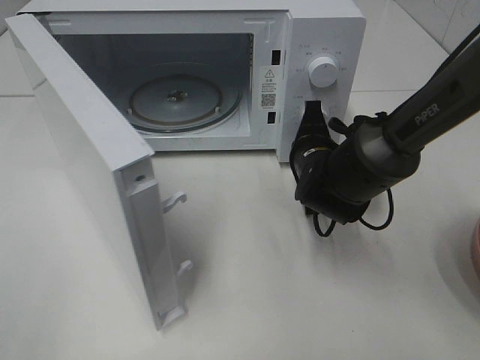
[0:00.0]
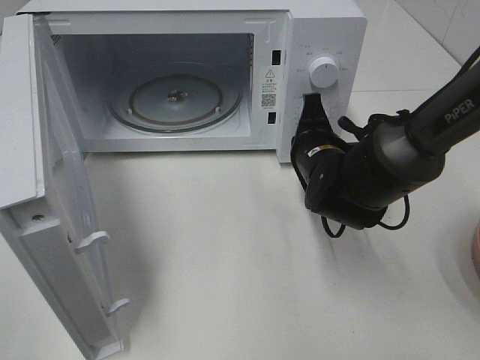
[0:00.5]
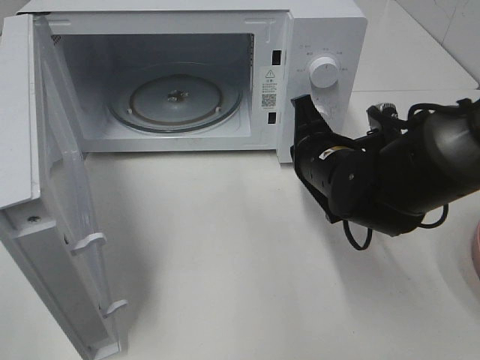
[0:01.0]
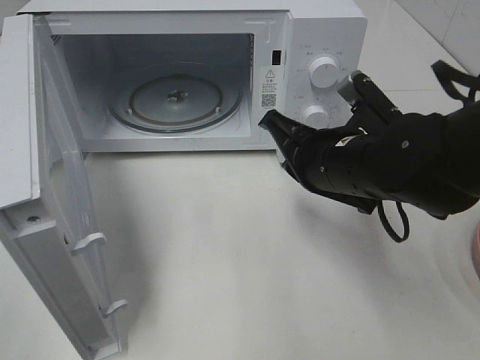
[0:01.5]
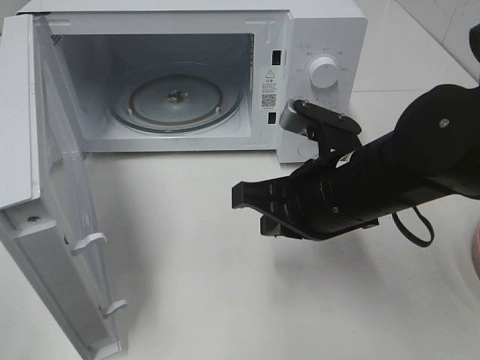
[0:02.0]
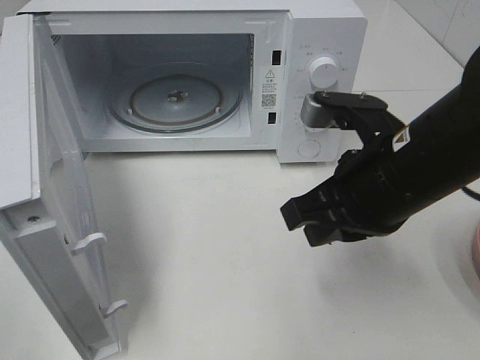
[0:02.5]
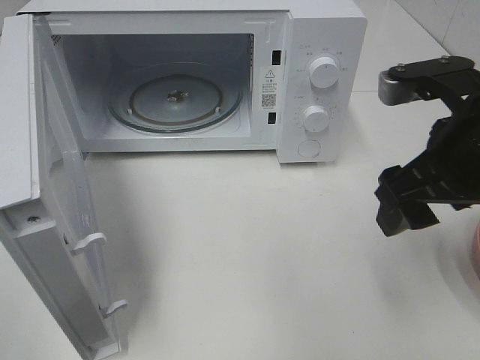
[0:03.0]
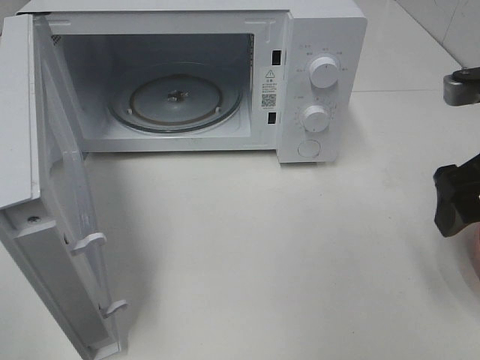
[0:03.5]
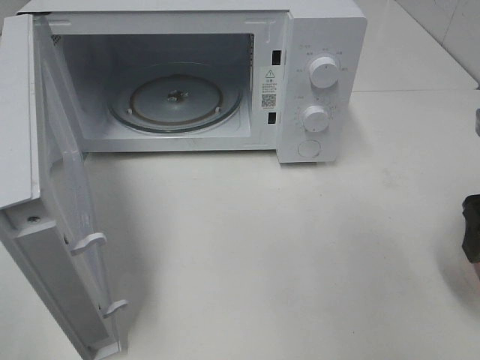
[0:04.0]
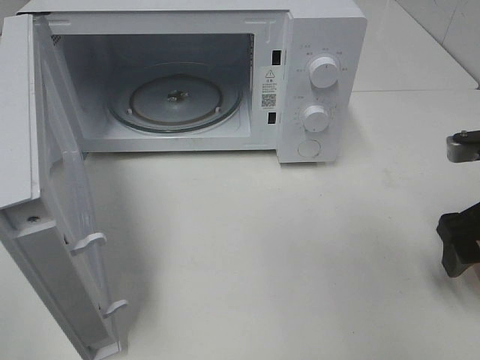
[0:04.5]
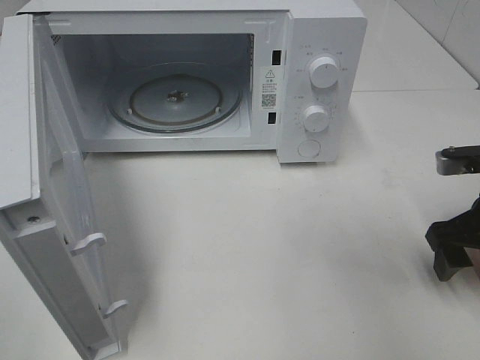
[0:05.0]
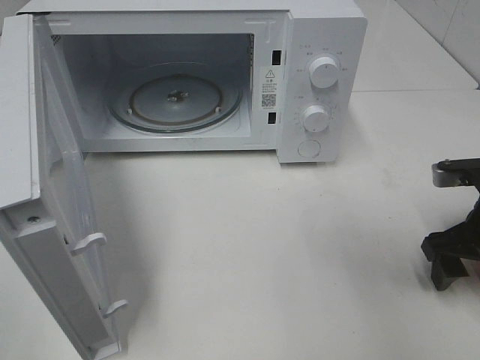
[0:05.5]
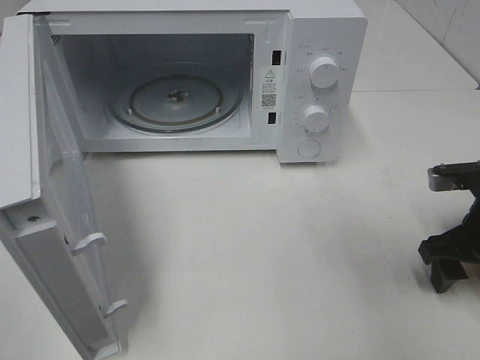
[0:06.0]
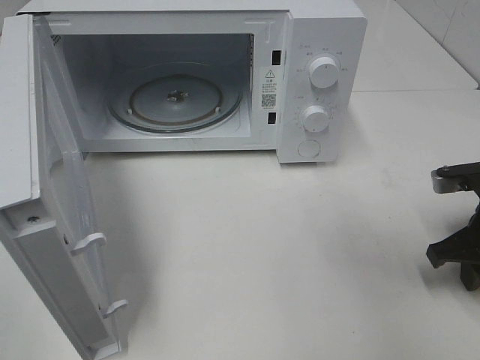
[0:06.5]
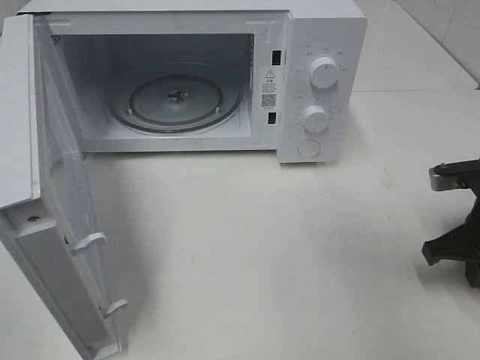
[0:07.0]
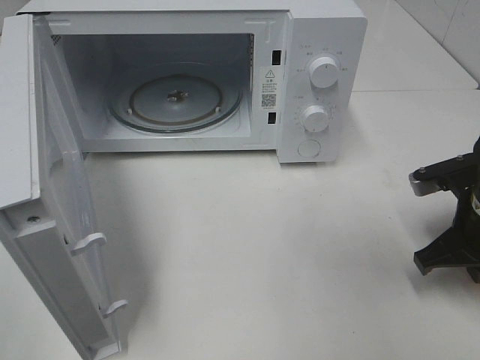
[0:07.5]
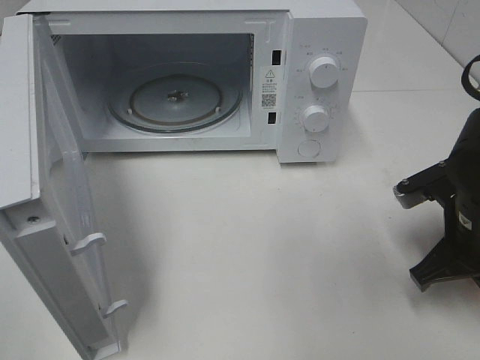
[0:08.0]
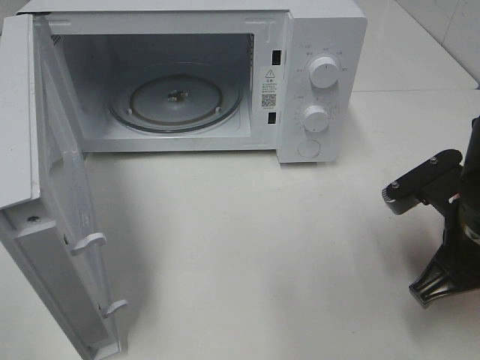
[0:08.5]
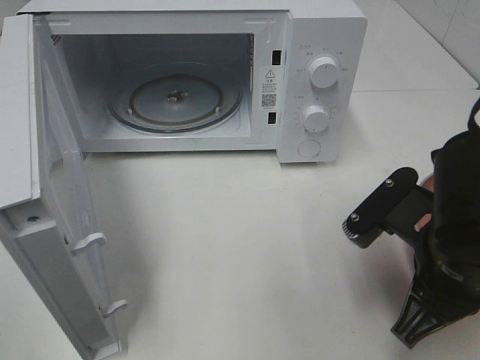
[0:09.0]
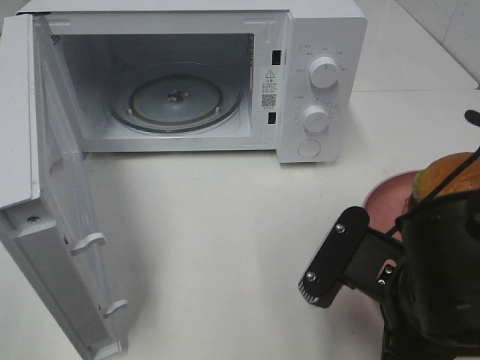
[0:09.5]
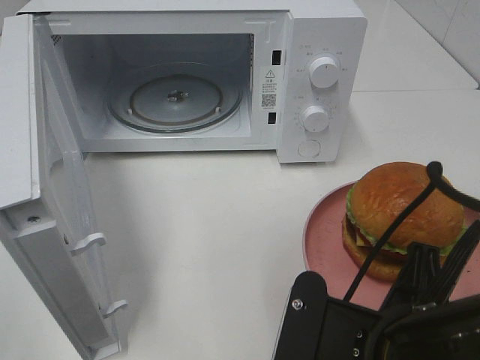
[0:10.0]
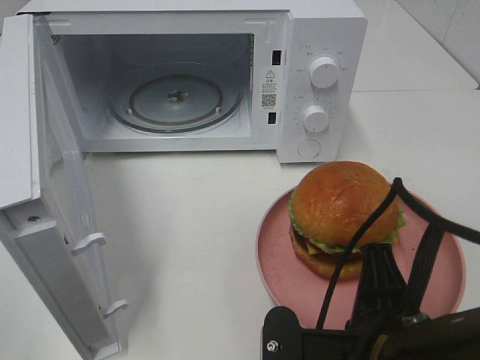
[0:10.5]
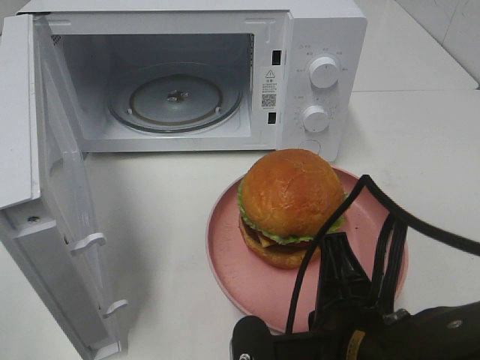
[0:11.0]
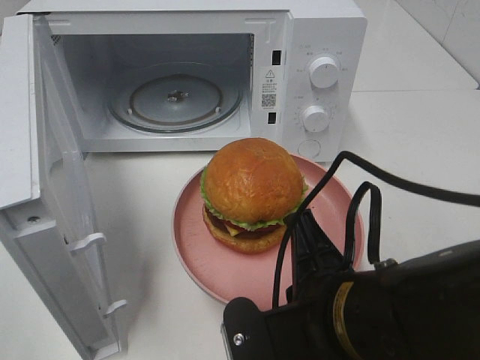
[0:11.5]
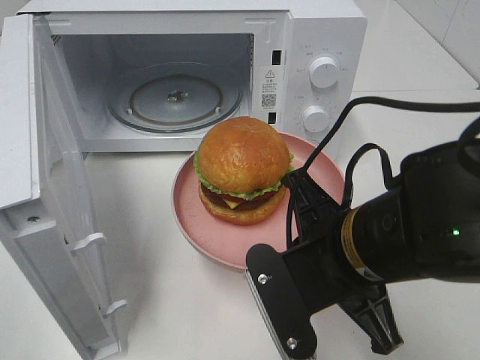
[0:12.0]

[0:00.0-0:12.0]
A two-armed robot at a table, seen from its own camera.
Task of the whole recording: Heat the burger.
Step, 0:01.0 to 0:07.0: Right hand: grab the plate with the hamburger.
0:00.0 to 0:02.0: The right gripper is displaced backward and upward by about 15 cm.
0:02.0 to 0:04.0: The right gripper shifts approximately 20 cm to the right, and opens.
0:04.0 to 0:06.0: The right gripper heads downward, covering some 10 cm.
0:06.0 to 0:08.0: The right gripper shifts about 5 cm to the left, and closes.
0:08.0 to 0:10.0: The right gripper is displaced backward and to the left by roughly 20 cm.
0:10.0 to 0:12.0: The right gripper shifts roughly 10 cm forward.

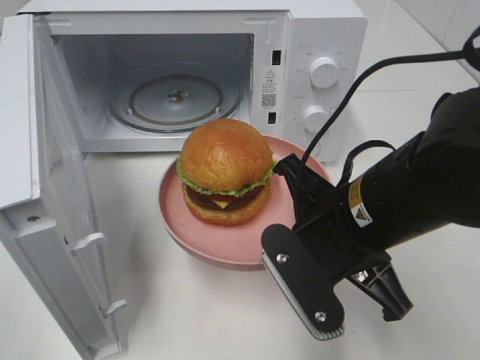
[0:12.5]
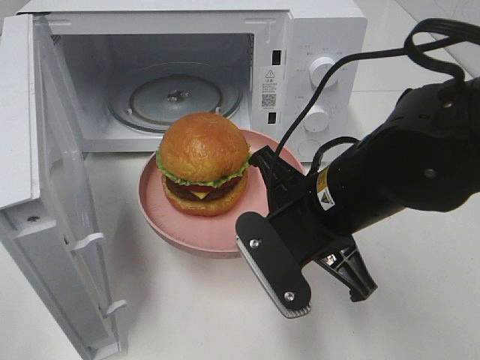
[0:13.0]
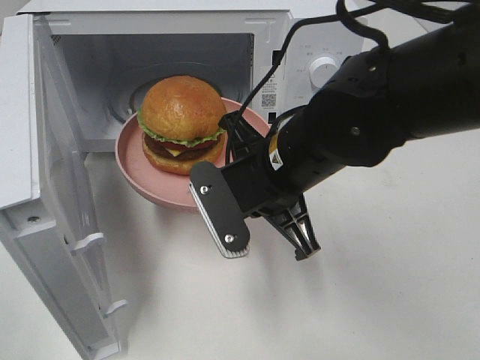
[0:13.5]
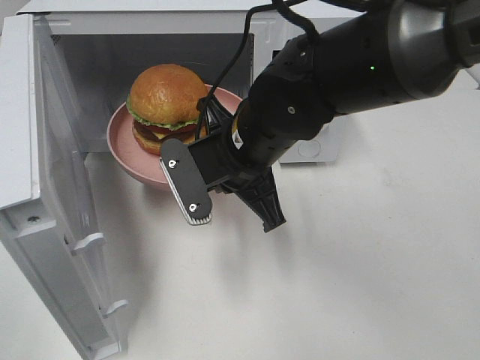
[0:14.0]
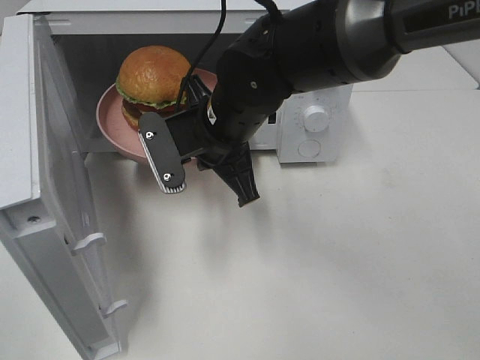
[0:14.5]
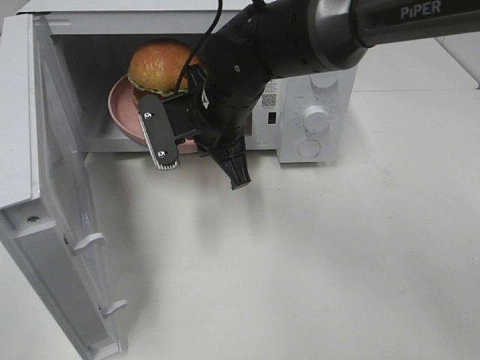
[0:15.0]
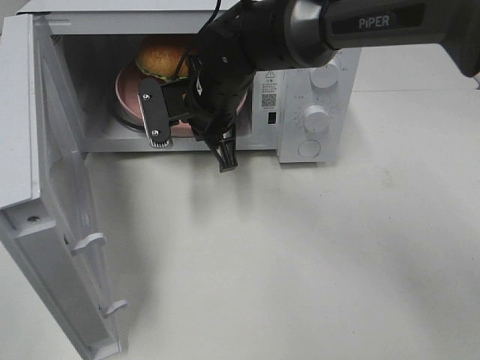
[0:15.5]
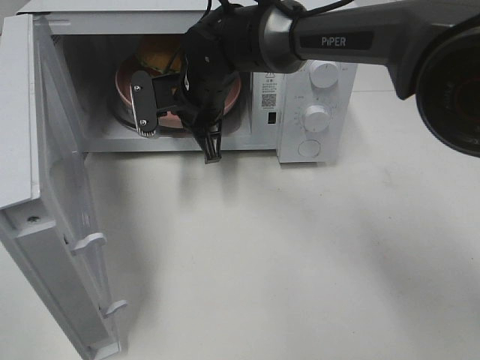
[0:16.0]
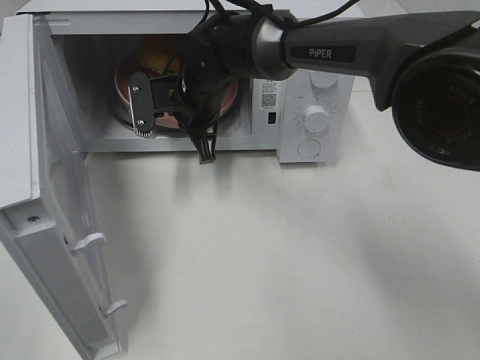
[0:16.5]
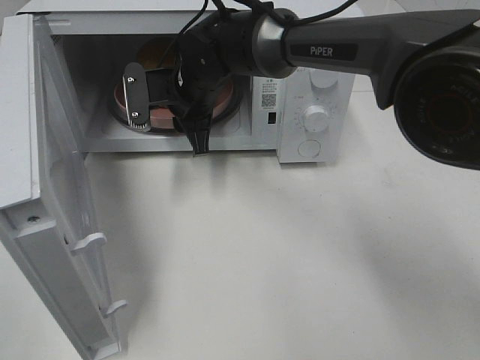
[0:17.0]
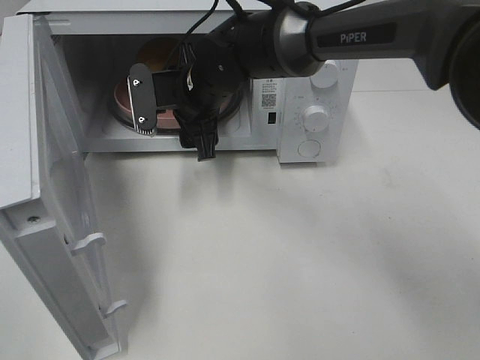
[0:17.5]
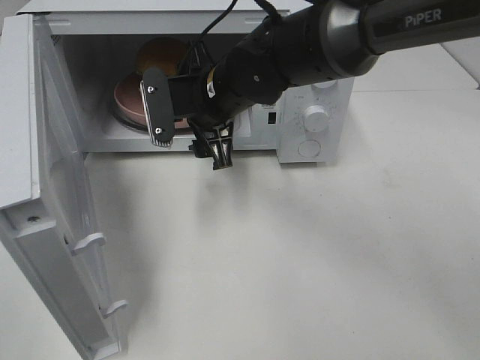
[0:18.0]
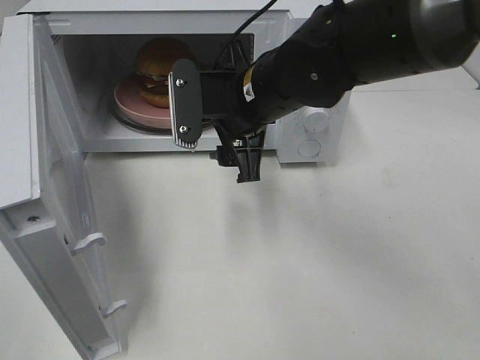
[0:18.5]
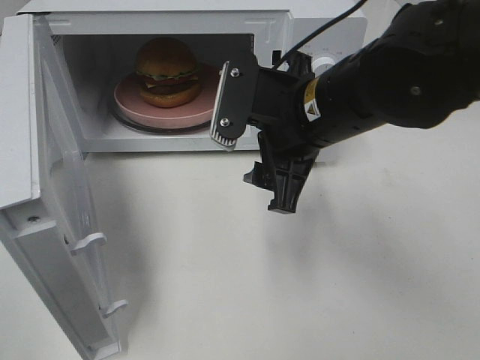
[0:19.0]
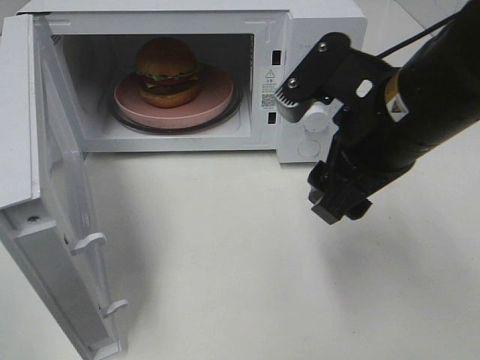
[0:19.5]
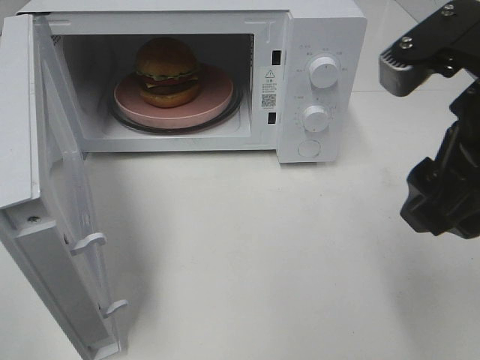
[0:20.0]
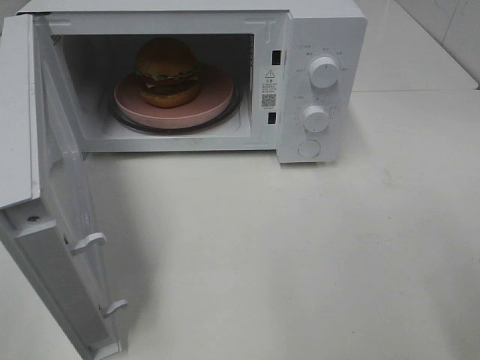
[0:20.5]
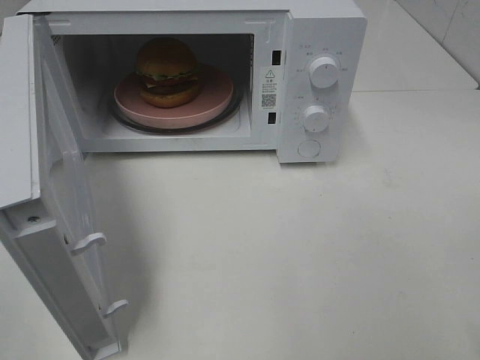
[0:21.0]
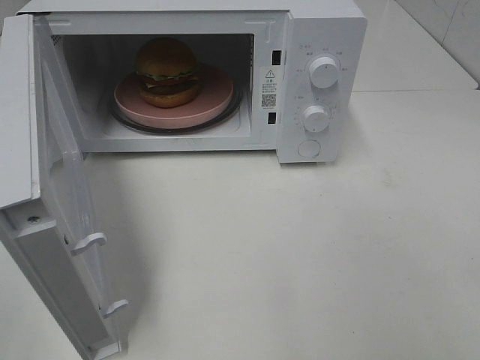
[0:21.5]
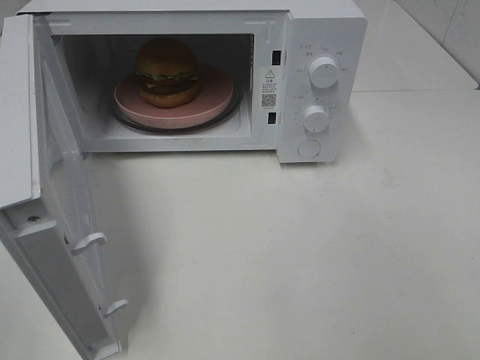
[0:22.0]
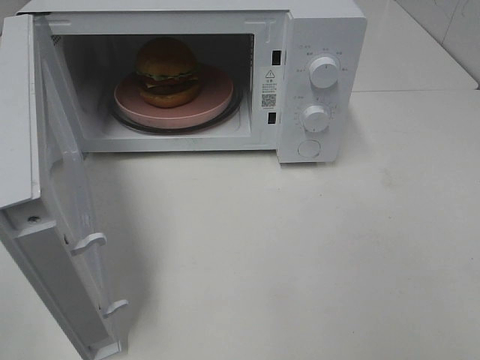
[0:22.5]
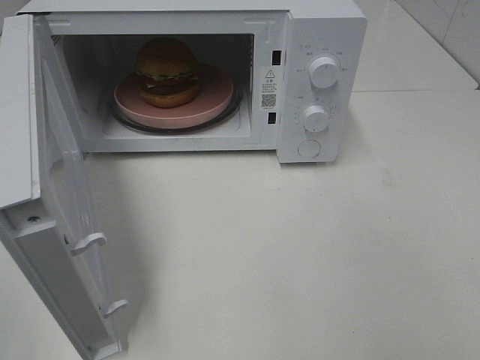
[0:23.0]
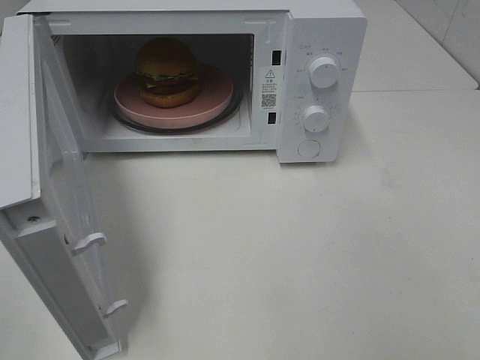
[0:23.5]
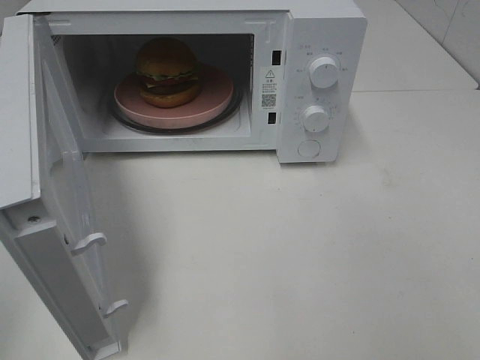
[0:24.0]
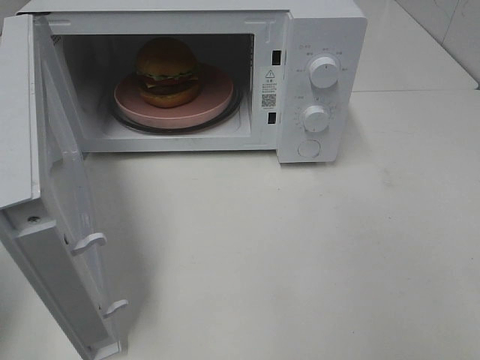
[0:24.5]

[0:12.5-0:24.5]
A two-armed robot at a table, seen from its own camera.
Task of the whole recording: Heat the burger.
Step, 0:12.5 to 0:17.0: Right hand: place the plate in the microwave.
0:12.5 to 0:14.5: The right gripper travels forward and to the left by roughly 15 cm.
0:14.5 to 0:16.5: The right gripper is displaced forward by about 10 cm.
0:16.5 to 0:18.5: The right gripper heads backward, to the right and upward, covering some 15 cm, and opens.
0:18.5 to 0:20.5: The right gripper is displaced backward, to the right and upward by approximately 30 cm.
0:20.5 to 0:22.5: The right gripper travels backward and to the right by about 15 cm.
0:22.5 to 0:24.5: The left gripper is displaced forward by some 15 cm, and closes.

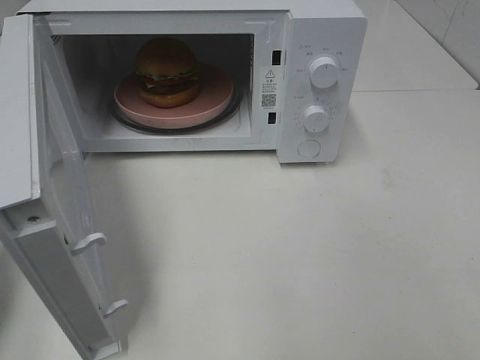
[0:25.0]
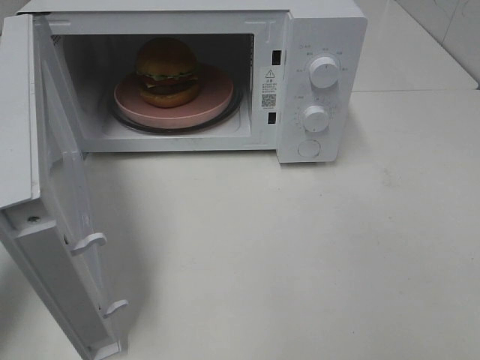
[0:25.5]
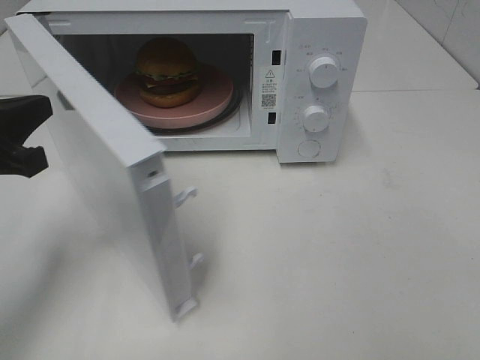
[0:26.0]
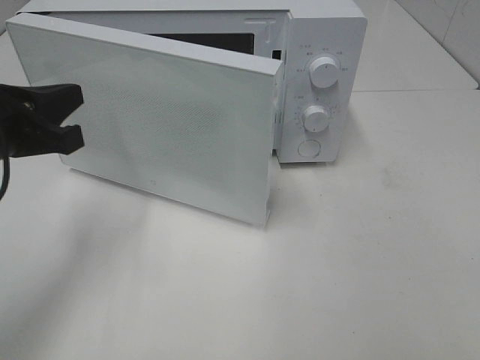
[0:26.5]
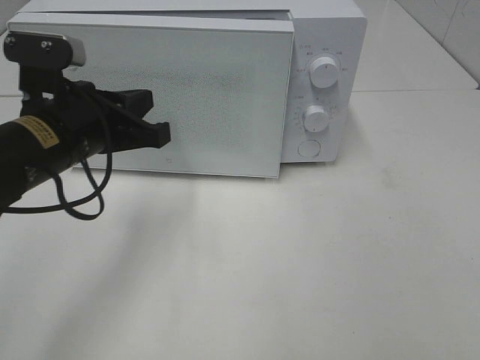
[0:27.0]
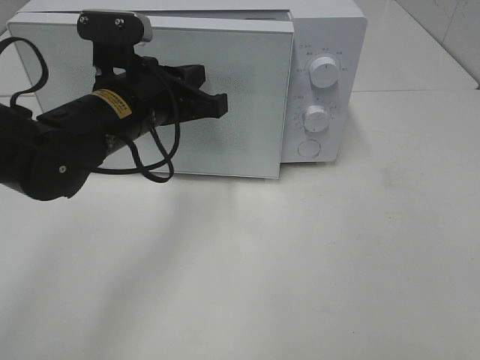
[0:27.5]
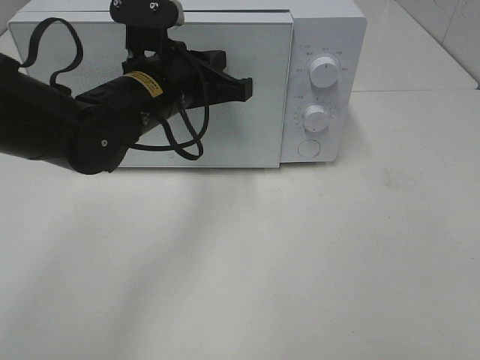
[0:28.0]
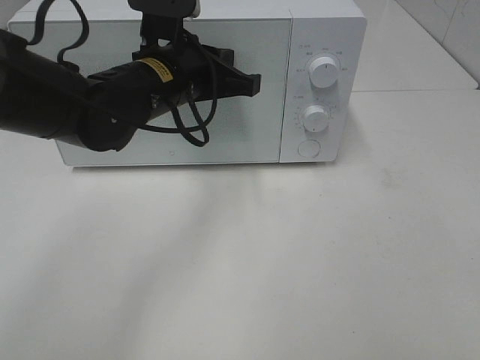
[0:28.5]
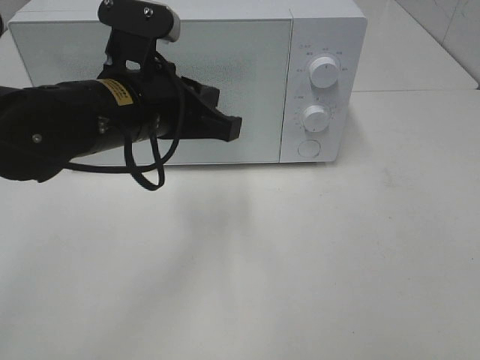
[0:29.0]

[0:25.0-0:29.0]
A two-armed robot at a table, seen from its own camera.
Task of the whole recording: Heat the burger.
Step, 0:25.0 to 0:28.5: Left hand: close the microwave door.
0:25.0 to 0:27.0: The left gripper moves to the right and forward, approximately 20 cm.
0:27.0 to 0:29.0: The left gripper shifts approximately 5 cm to the right.
